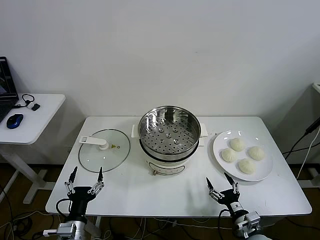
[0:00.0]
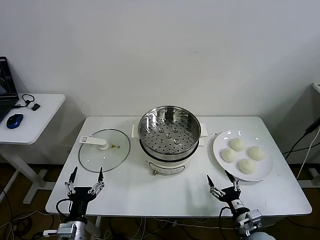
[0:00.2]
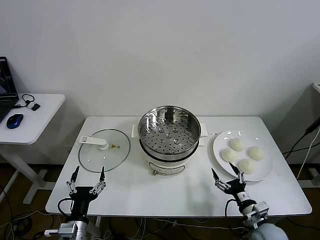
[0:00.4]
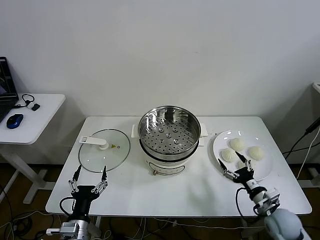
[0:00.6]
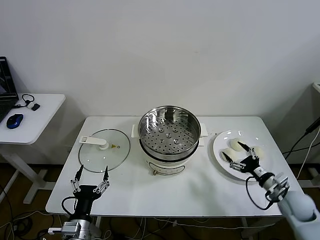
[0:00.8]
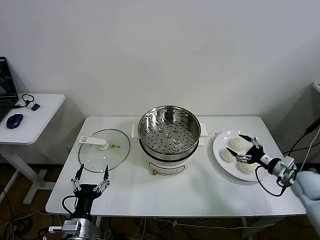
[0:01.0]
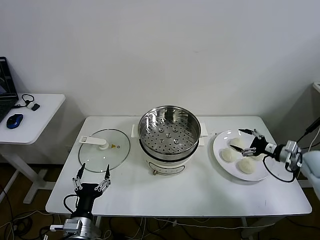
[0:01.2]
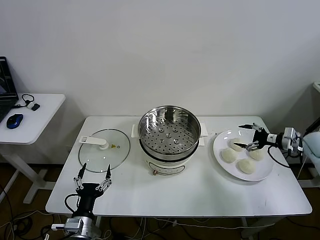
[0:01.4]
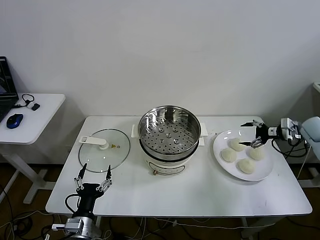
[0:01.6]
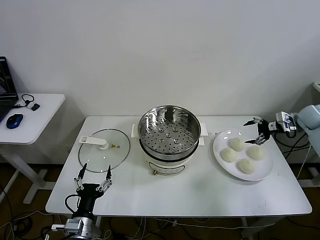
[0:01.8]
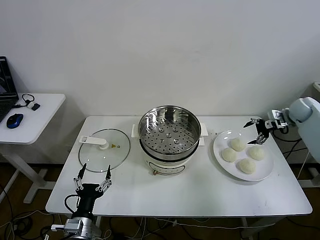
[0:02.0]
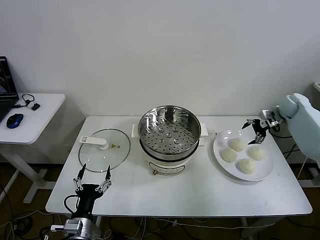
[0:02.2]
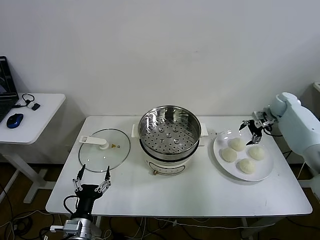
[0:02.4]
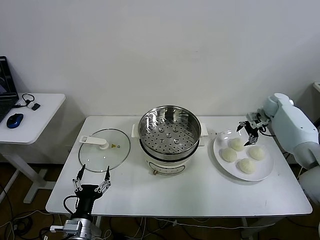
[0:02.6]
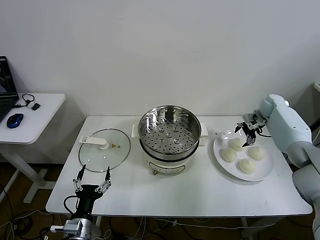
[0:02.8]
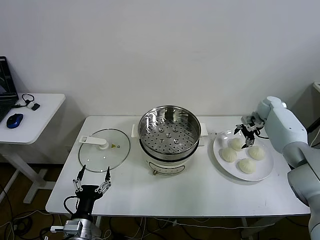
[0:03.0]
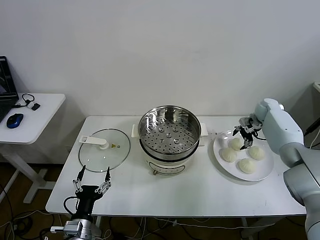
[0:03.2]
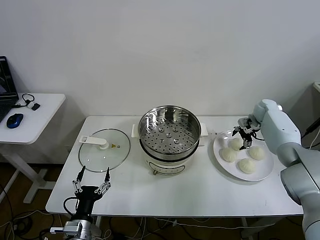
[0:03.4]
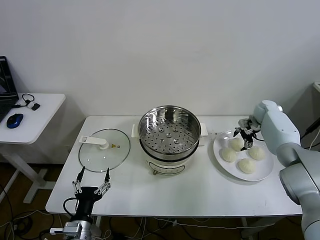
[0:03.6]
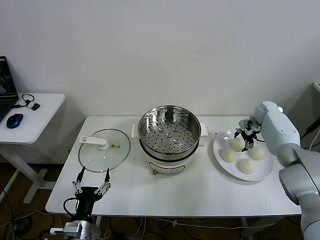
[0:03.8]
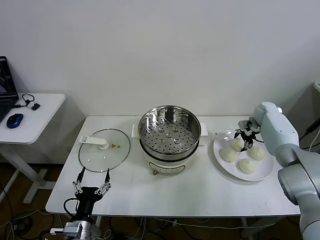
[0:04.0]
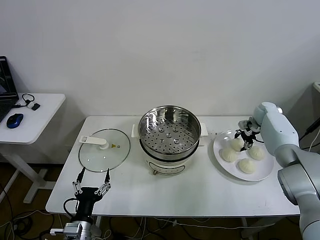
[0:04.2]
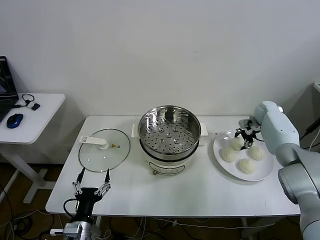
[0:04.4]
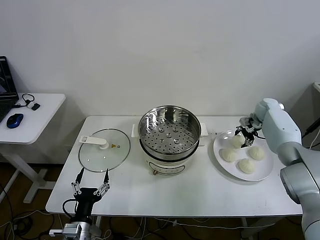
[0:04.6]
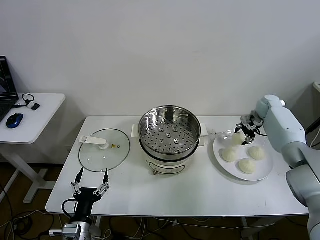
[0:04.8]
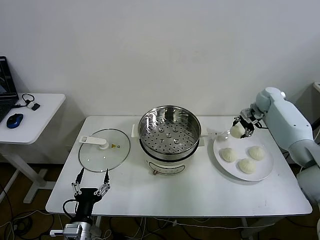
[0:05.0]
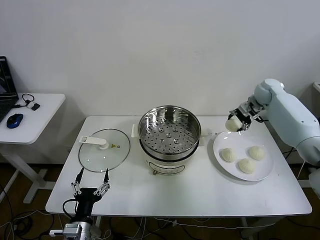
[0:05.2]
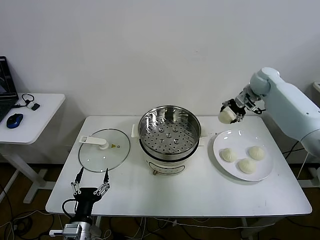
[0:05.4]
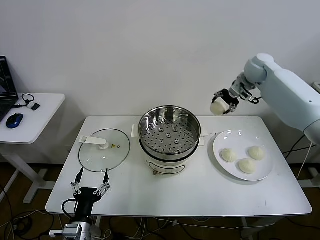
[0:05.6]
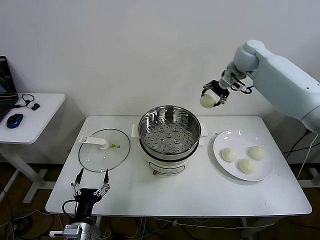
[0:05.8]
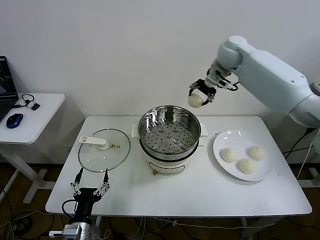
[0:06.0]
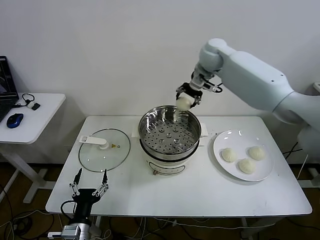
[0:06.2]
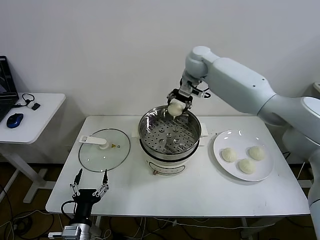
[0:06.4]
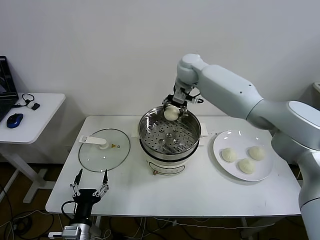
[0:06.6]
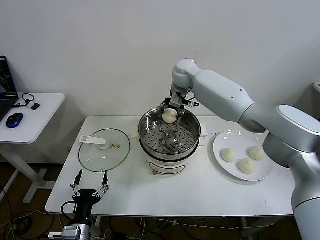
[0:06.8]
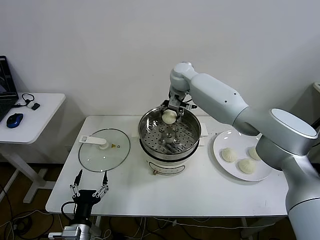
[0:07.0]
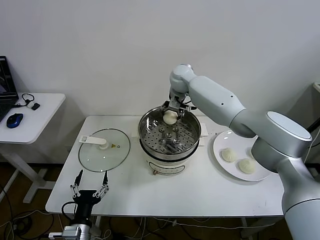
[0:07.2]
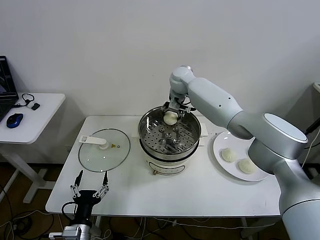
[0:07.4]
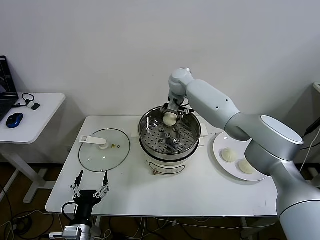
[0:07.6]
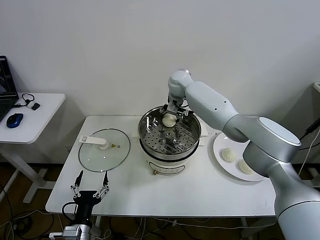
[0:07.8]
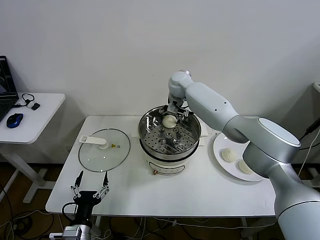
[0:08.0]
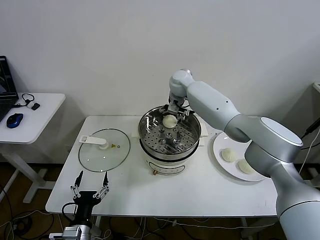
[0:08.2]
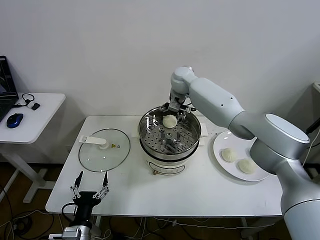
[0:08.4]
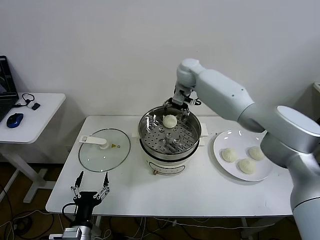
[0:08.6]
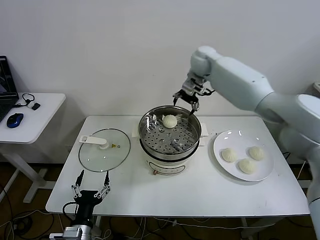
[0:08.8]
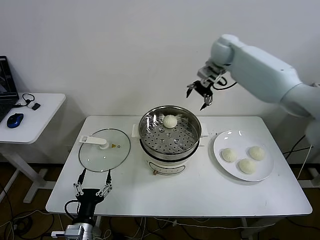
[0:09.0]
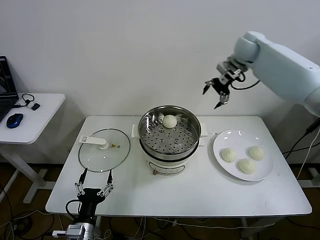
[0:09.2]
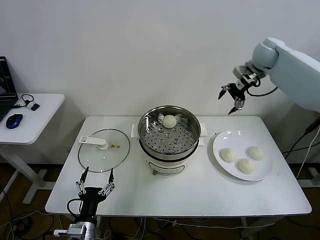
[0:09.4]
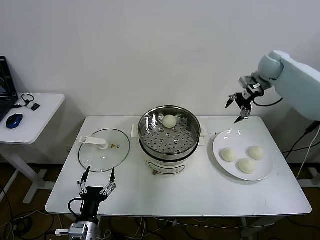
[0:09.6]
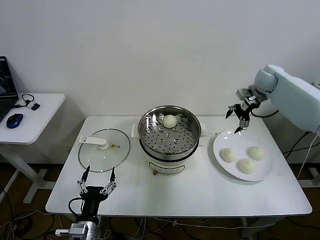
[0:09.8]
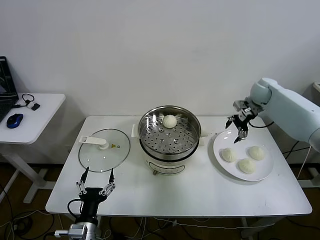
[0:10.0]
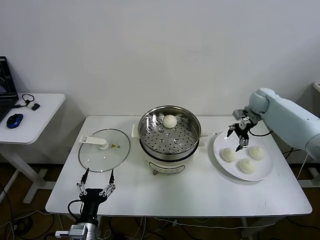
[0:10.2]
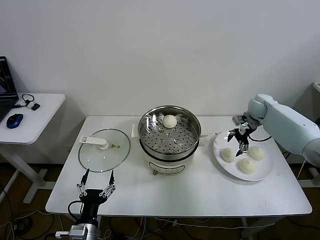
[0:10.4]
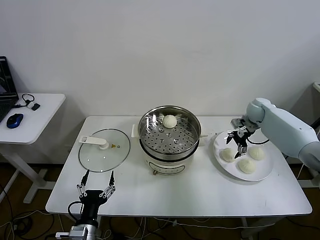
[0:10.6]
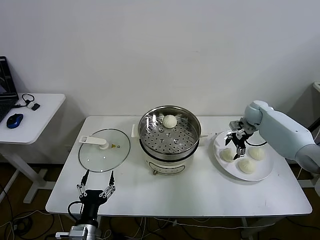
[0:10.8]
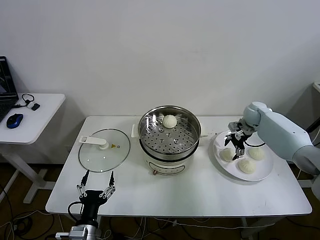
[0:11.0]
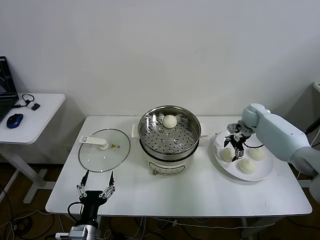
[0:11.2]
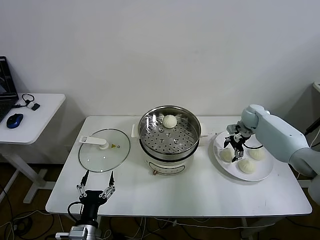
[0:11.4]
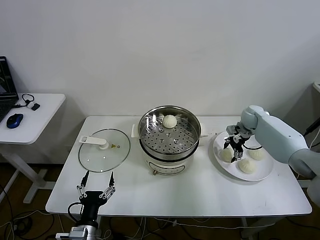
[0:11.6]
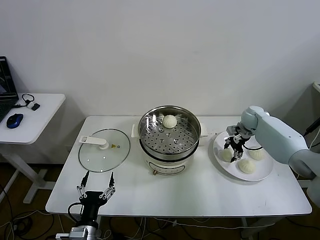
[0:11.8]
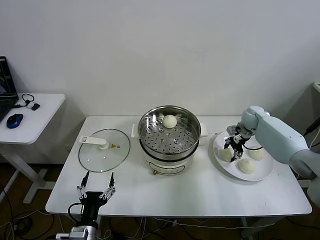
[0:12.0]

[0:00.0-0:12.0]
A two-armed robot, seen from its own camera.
Step, 0:00.0 to 0:04.2: Grasp the baozi in the plate with right gripper.
Step, 0:04.6 to 0:08.4: Place the baozi on the steamer with right gripper.
Step, 0:08.6 to 0:11.8: Grasp the baozi in the plate with right gripper.
0:01.6 to 0:03.0: The right gripper goes roughly 15 cm forward and to the left.
0:03.0 to 0:04.4: The right gripper closes its fingers.
0:04.4 to 0:06.0: The right gripper is displaced upward and to the left by about 35 cm.
0:06.0 to 0:07.6: The right gripper goes roughly 15 cm to the left and downward.
0:07.6 to 0:09.0: The right gripper is displaced to the right and upward by roughly 20 cm, and opens its fingers.
0:09.0 to 0:10.4: The right gripper heads downward and to the right, covering approximately 25 cm.
0:10.4 to 0:12.0: The right gripper closes.

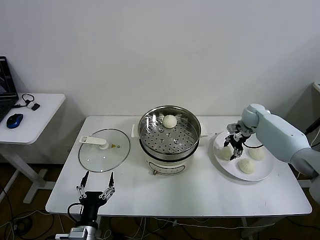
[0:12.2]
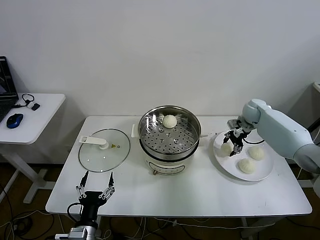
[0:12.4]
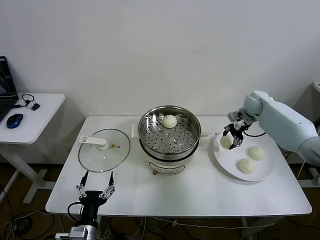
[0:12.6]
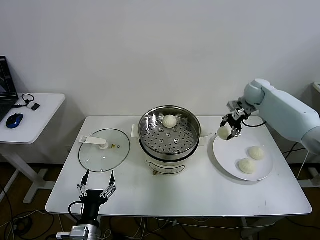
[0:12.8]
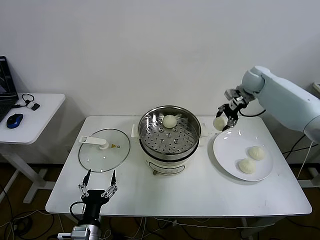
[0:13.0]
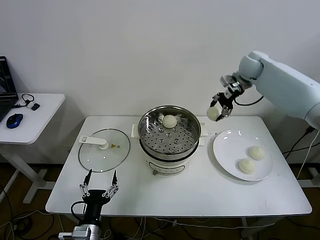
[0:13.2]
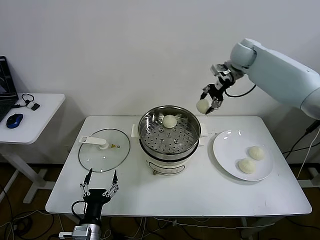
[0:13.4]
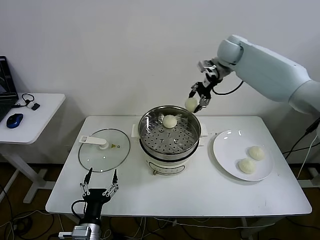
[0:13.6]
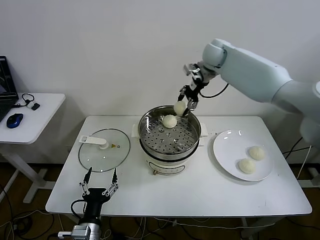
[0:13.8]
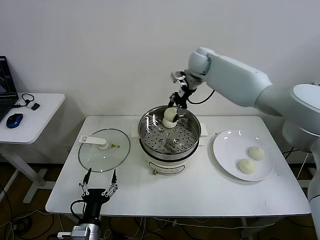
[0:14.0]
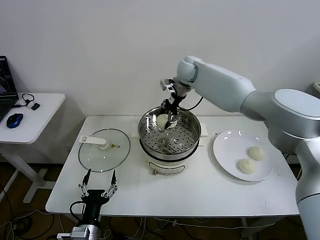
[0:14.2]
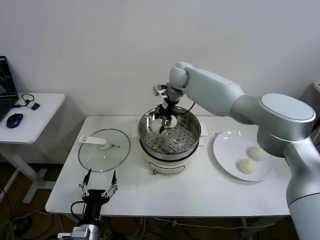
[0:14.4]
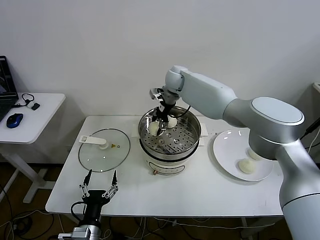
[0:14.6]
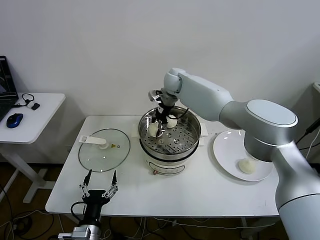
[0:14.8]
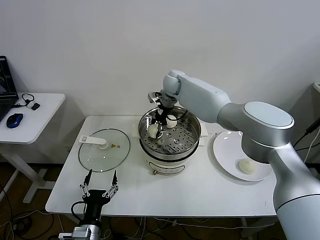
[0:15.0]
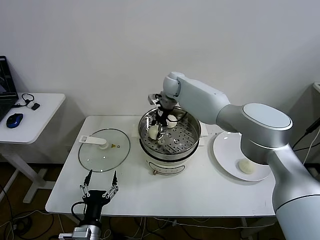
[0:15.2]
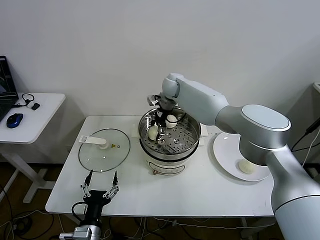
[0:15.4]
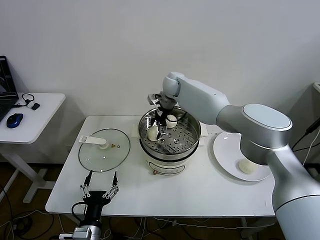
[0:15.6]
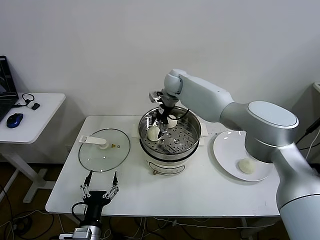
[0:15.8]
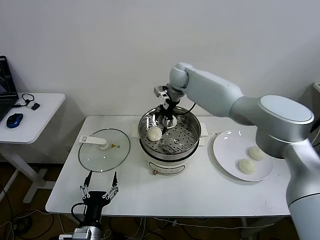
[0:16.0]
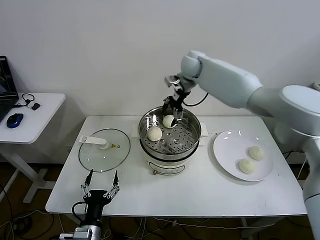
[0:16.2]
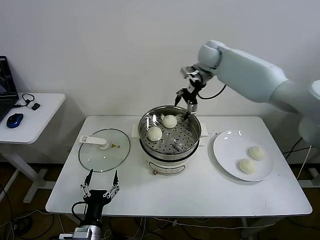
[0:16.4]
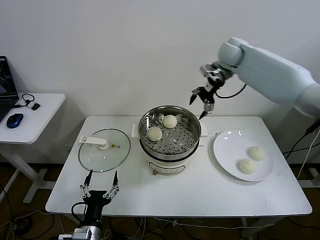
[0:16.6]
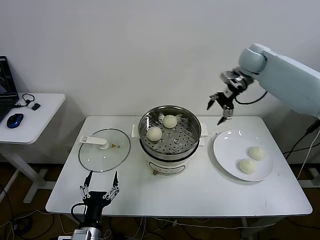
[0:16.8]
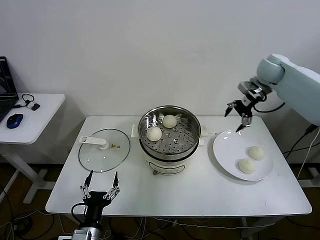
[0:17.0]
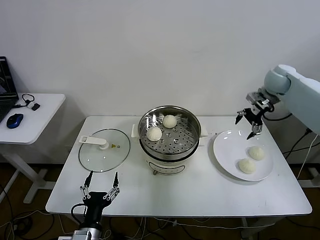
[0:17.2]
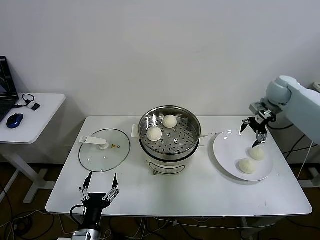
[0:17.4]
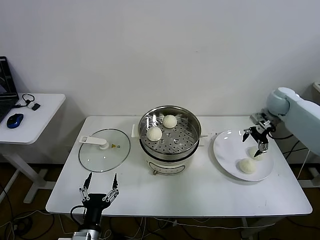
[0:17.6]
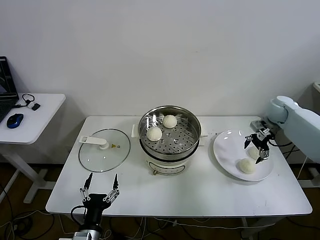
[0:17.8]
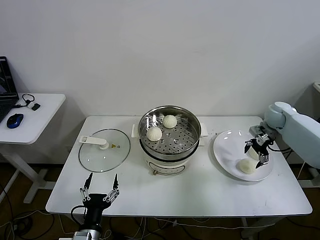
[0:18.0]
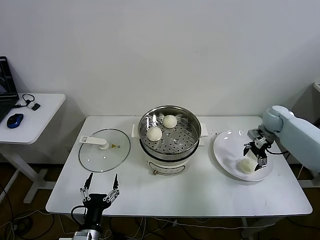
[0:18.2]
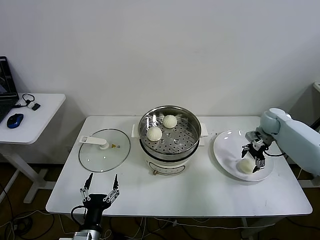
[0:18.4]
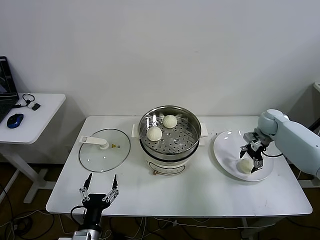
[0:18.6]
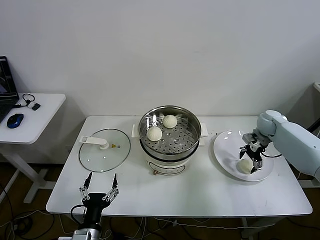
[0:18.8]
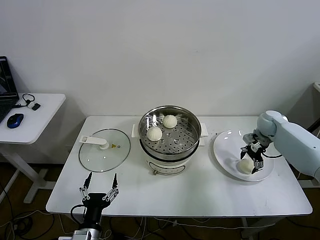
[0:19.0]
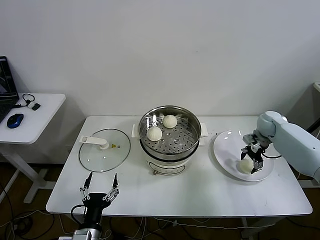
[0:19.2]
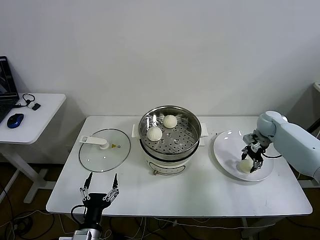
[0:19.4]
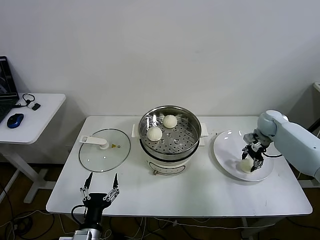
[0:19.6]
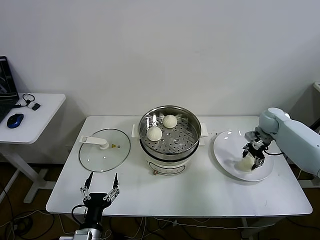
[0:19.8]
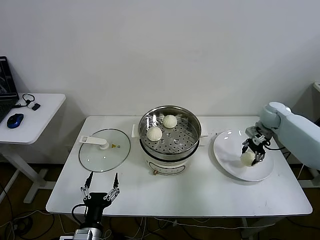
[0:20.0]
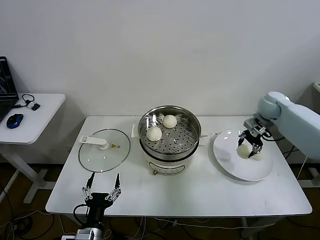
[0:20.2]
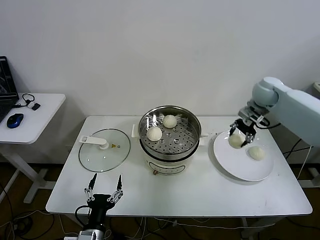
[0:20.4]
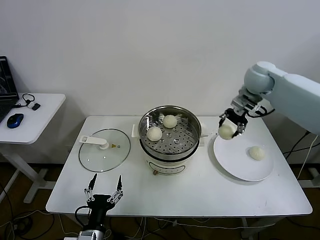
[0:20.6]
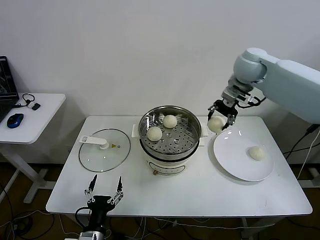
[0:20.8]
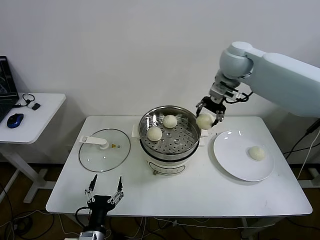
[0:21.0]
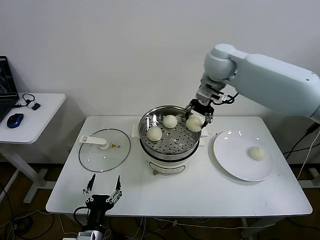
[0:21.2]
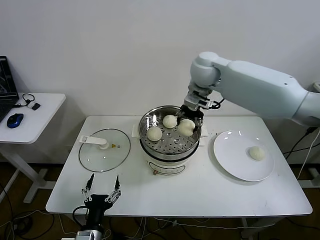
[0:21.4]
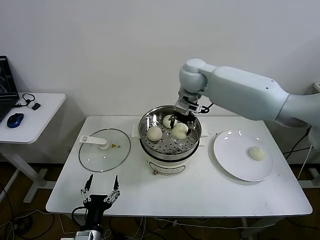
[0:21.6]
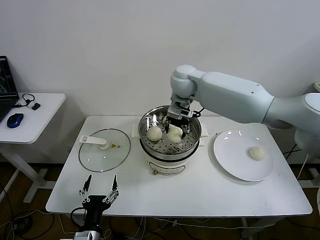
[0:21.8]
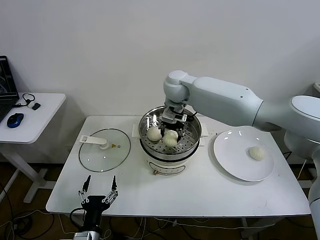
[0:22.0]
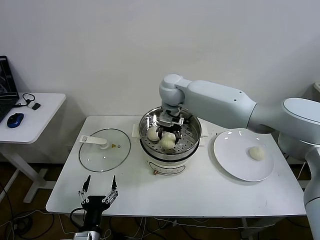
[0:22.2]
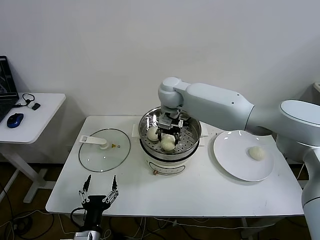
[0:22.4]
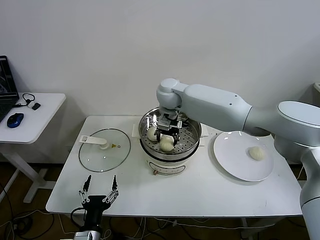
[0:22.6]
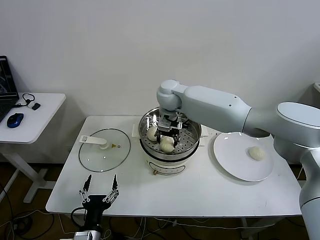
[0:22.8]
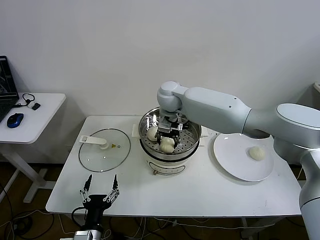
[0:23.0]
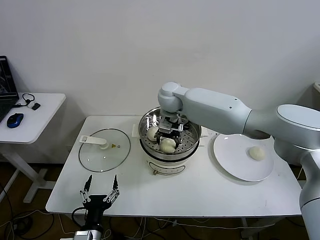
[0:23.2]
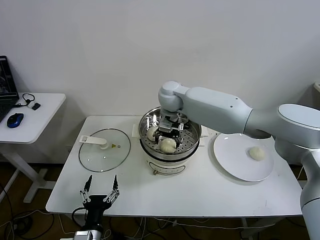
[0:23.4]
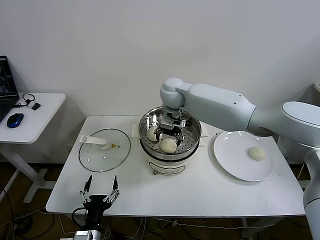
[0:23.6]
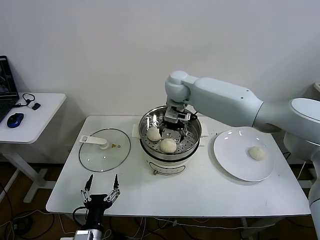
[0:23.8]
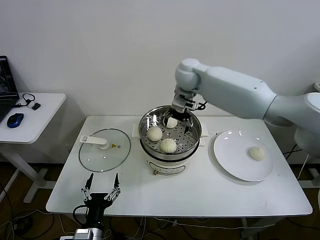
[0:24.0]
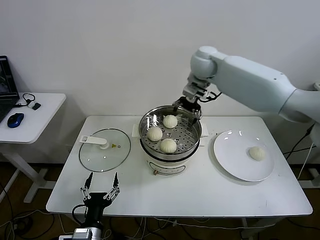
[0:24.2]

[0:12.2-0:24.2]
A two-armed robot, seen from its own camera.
Step, 0:12.2 to 0:16.0: Place the baozi on the steamer with right gripper.
Step, 0:16.2 to 0:19.4: Grasp the baozi in the plate with right gripper.
Step, 0:19.6 to 0:23.6: Place the baozi on the steamer with right gripper.
0:12.2 to 0:13.8: The right gripper moves upward and to the left, approximately 30 cm.
0:13.8 to 0:15.2: The right gripper moves to the left and downward, about 15 cm.
0:15.2 to 0:16.6: The right gripper travels to the right and upward by roughly 25 cm, and opens its fingers.
0:16.6 to 0:18.2: The right gripper travels downward and to the right by about 30 cm.
0:18.2 to 0:19.8: The right gripper closes its fingers.
0:19.8 to 0:21.2: The right gripper goes some 35 cm to the left and upward.
0:21.2 to 0:22.6: The right gripper shifts about 15 cm to the left and downward.
0:22.6 to 0:24.2: The right gripper shifts roughly 15 cm to the right and upward, and opens its fingers.
